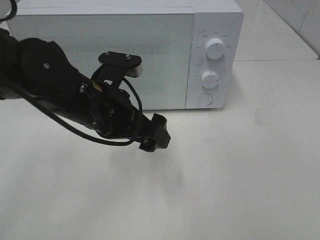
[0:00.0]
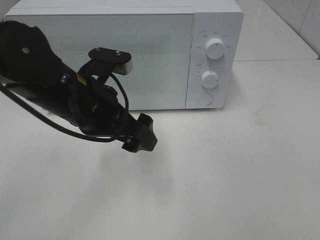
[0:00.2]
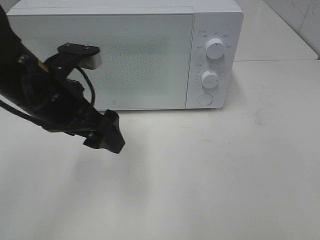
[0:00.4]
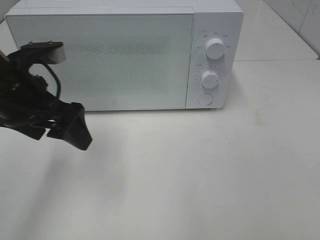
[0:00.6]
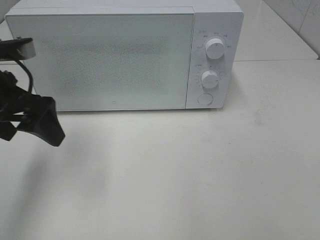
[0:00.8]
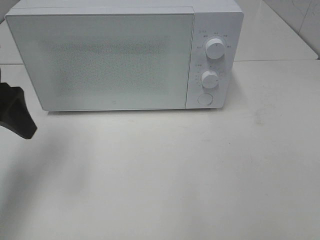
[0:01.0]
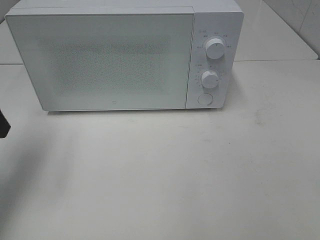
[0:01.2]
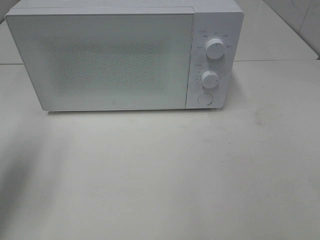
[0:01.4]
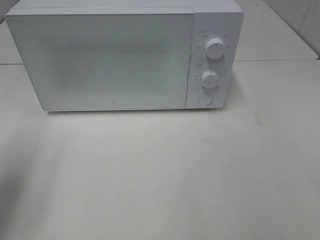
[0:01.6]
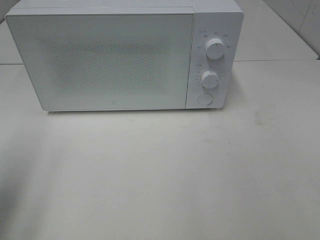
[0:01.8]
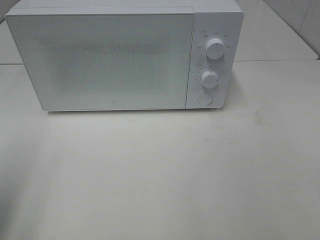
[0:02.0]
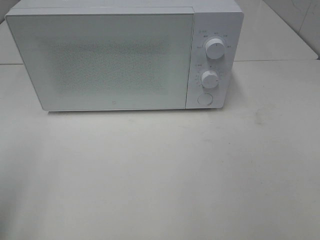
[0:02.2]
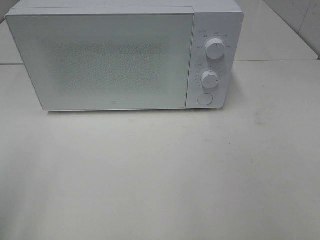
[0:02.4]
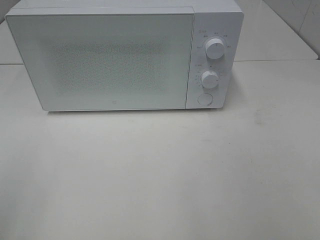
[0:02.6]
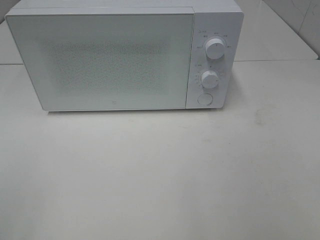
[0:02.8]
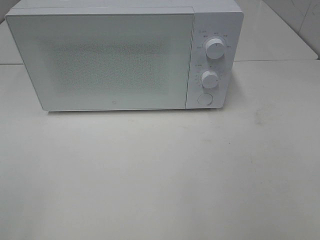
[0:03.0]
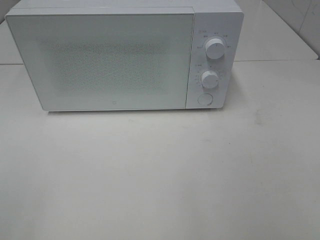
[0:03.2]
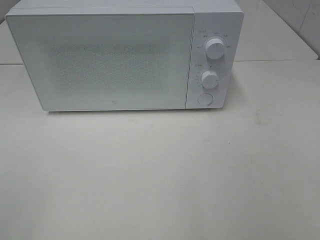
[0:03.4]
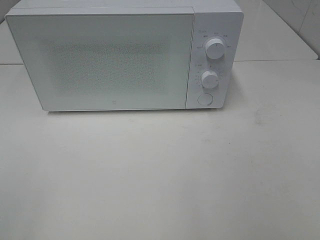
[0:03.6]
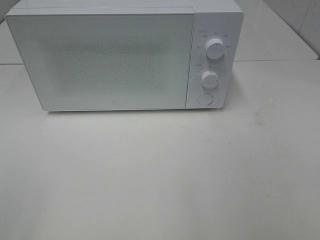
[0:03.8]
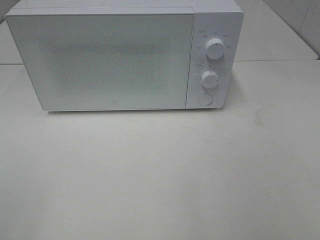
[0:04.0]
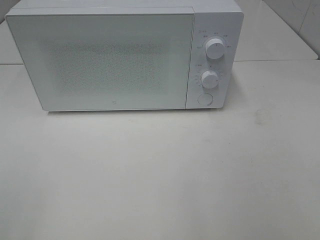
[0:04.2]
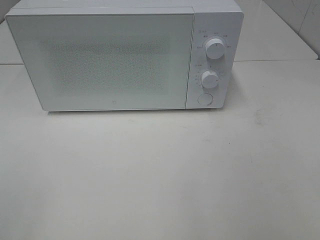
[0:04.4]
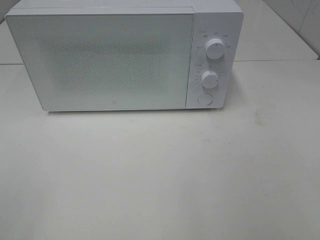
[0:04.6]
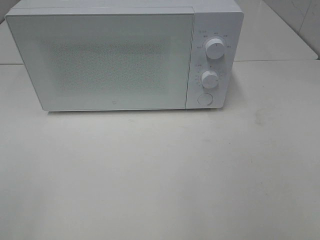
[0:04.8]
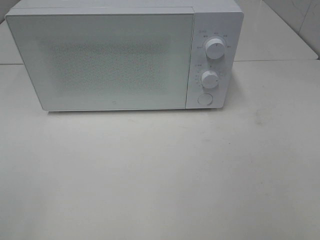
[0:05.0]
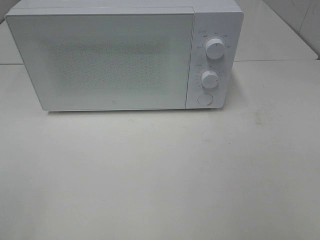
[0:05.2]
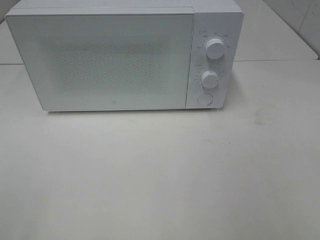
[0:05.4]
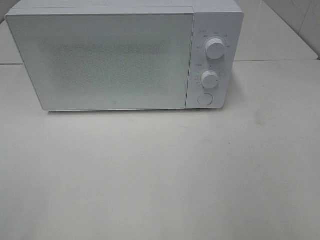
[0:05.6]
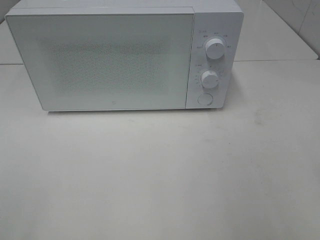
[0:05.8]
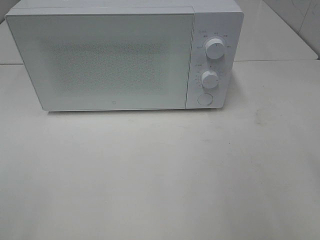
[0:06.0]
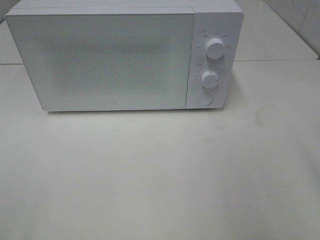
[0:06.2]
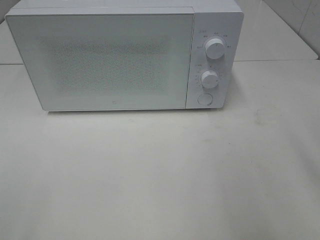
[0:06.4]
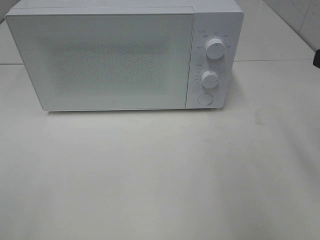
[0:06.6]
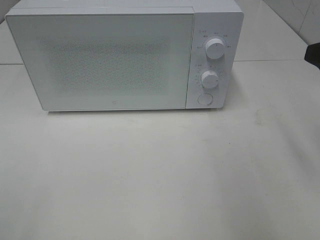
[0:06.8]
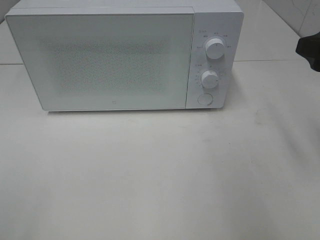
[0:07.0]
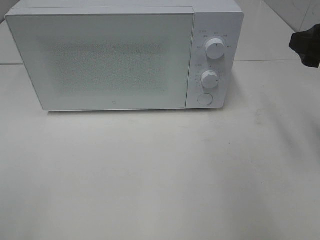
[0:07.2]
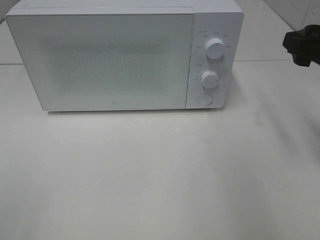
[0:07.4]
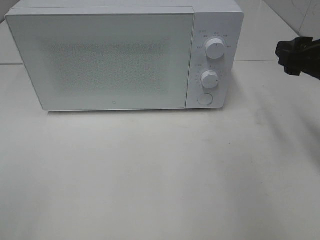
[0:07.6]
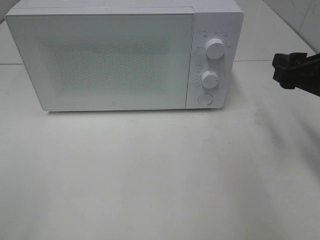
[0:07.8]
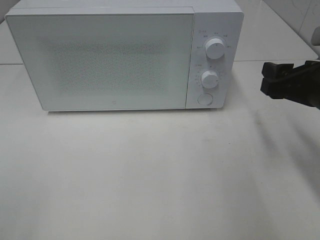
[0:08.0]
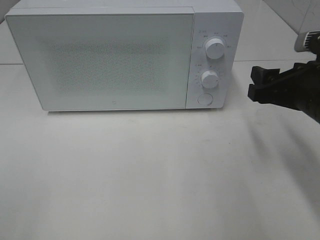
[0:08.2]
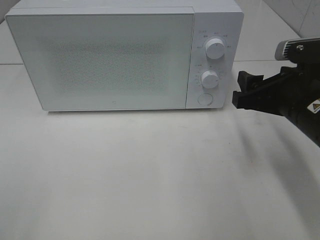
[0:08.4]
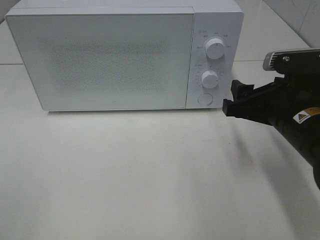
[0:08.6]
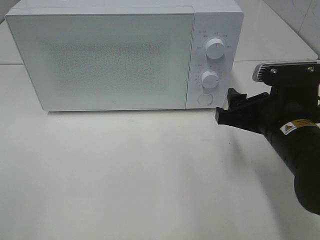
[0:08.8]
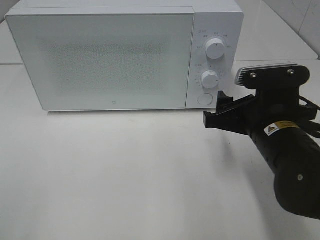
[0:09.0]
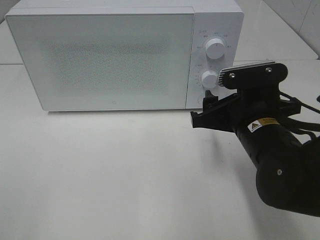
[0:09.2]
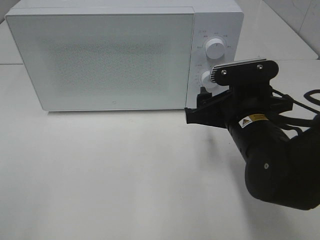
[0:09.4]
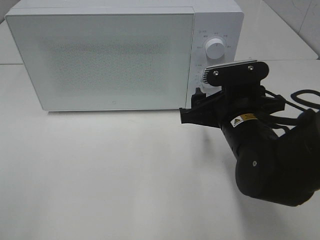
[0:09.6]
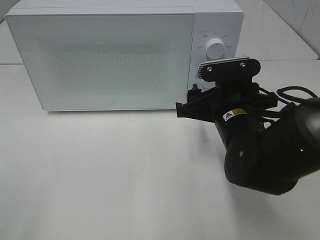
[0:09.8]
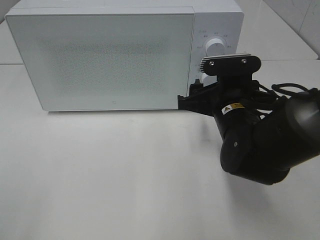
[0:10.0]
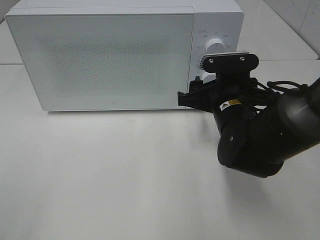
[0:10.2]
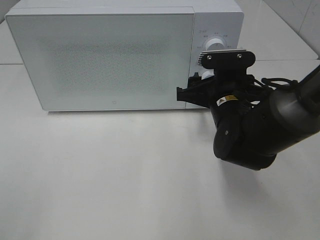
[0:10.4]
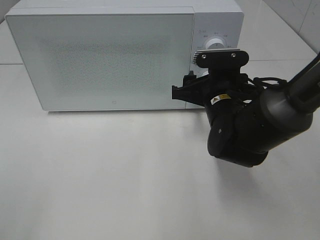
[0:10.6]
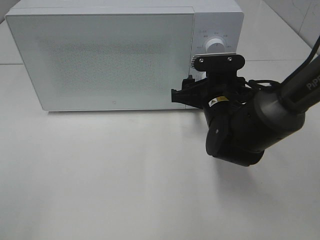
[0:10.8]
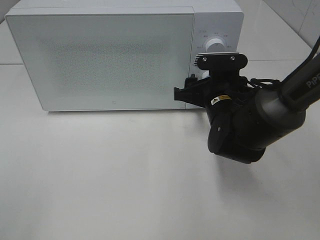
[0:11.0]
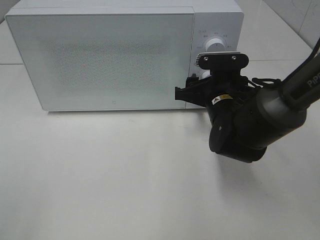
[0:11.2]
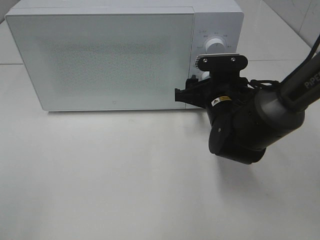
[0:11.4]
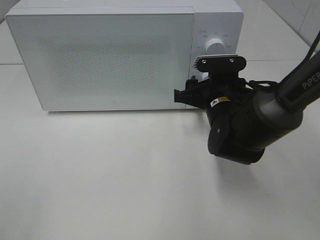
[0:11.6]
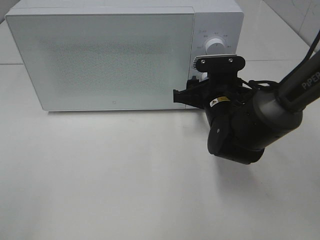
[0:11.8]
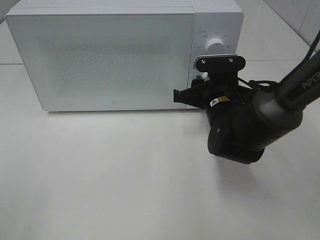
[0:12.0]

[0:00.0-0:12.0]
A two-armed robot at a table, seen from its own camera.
Task of the whole recording: Heat the burger.
0:00.0 to 0:01.6: The left gripper goes roughly 25 cm to the left.
0:01.6 to 0:03.0: The left gripper moves backward, some 20 cm.
0:03.0 to 0:04.4: Neither gripper changes place.
0:06.0 to 0:07.6: The right gripper is displaced forward and downward by roughly 15 cm.
0:07.6 to 0:09.0: The right gripper goes some 15 cm to the left and downward.
0:09.0 to 0:10.4: The right gripper is displaced forward by about 10 cm.
0:10.4 to 0:12.0: There are only small adjustments of the grippers.

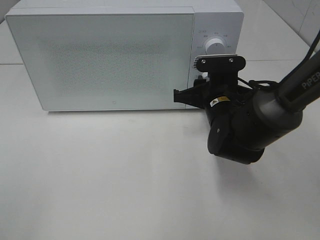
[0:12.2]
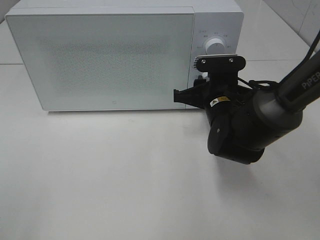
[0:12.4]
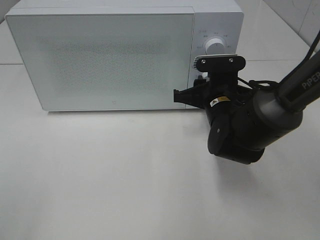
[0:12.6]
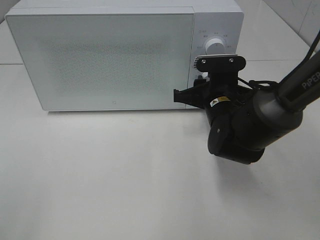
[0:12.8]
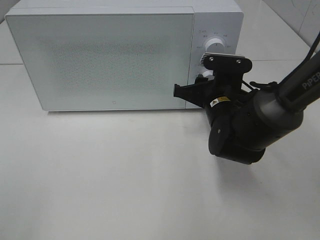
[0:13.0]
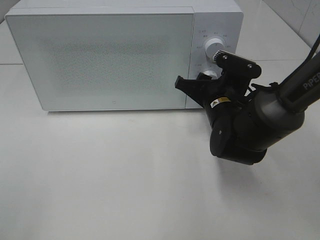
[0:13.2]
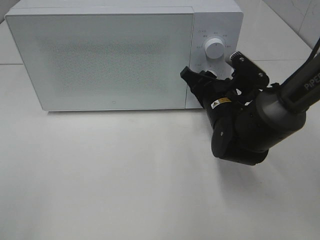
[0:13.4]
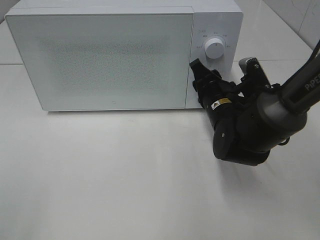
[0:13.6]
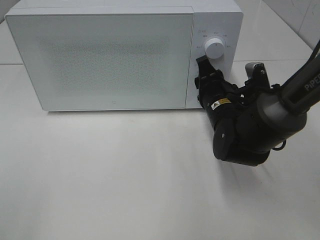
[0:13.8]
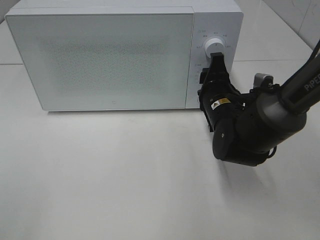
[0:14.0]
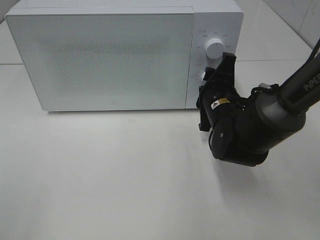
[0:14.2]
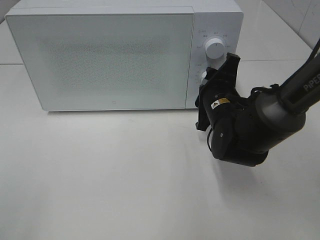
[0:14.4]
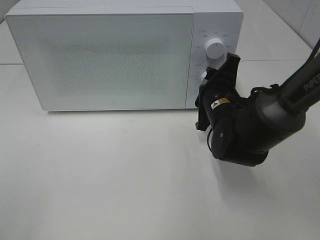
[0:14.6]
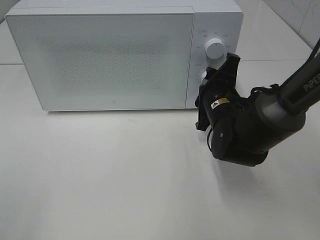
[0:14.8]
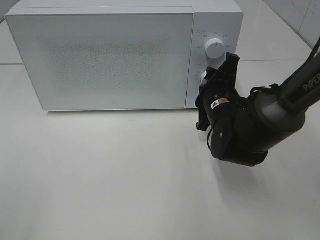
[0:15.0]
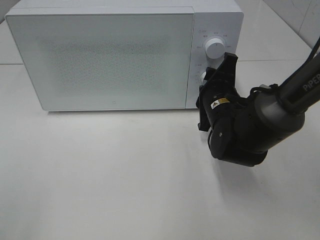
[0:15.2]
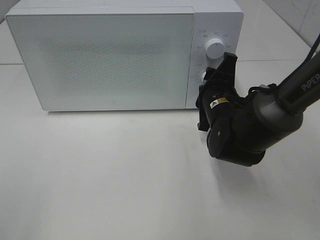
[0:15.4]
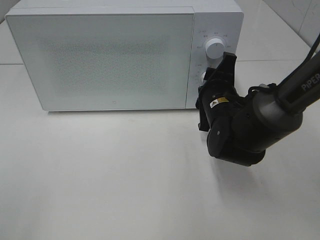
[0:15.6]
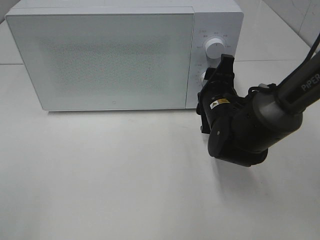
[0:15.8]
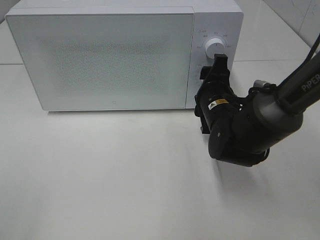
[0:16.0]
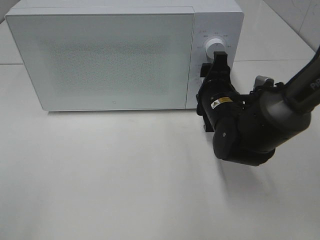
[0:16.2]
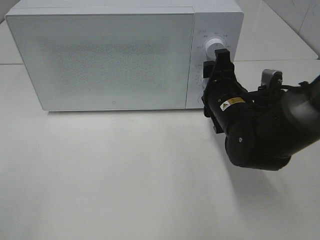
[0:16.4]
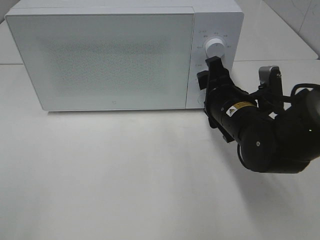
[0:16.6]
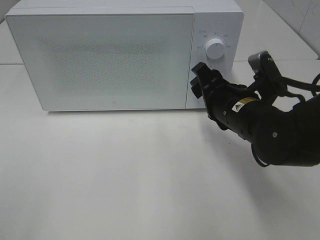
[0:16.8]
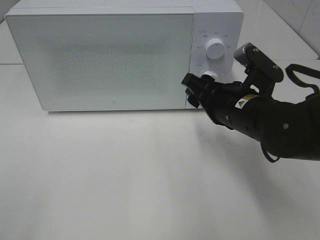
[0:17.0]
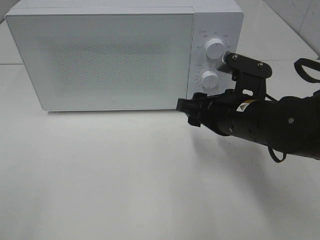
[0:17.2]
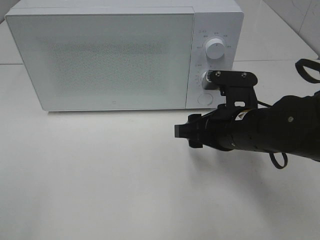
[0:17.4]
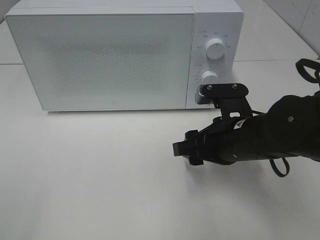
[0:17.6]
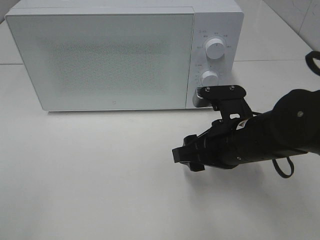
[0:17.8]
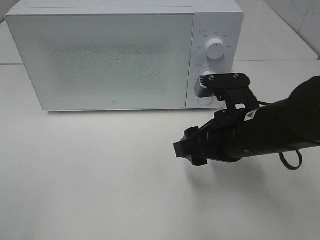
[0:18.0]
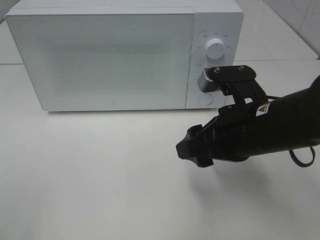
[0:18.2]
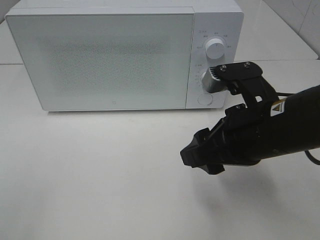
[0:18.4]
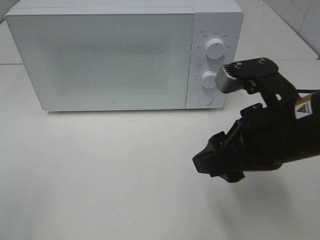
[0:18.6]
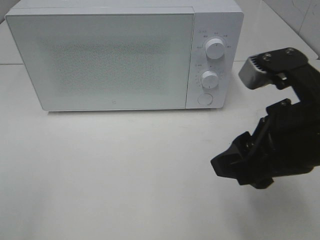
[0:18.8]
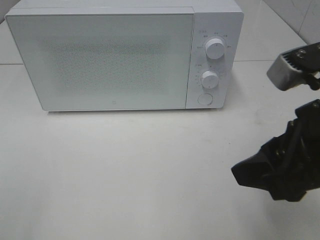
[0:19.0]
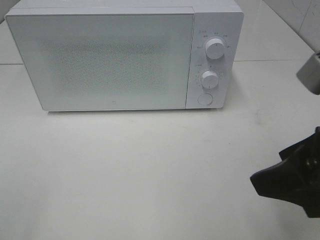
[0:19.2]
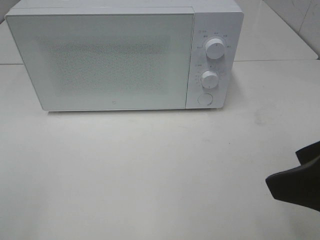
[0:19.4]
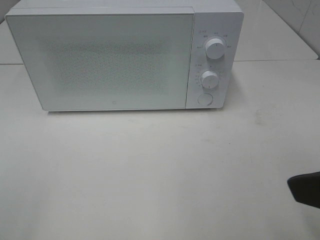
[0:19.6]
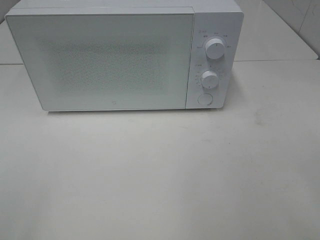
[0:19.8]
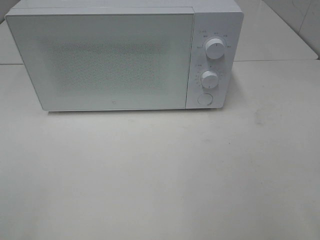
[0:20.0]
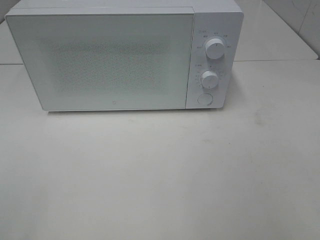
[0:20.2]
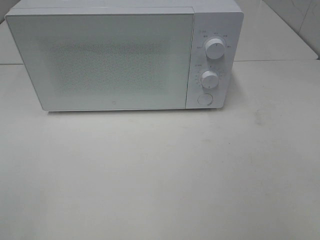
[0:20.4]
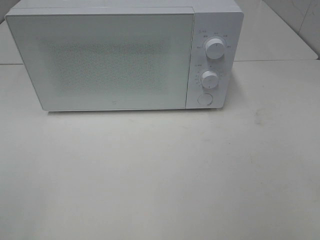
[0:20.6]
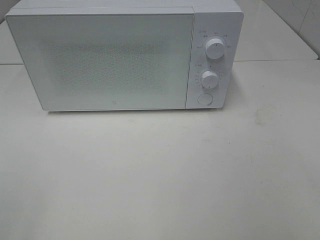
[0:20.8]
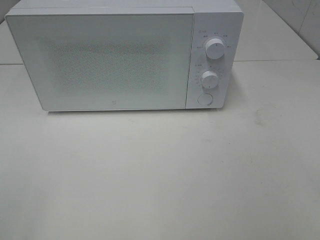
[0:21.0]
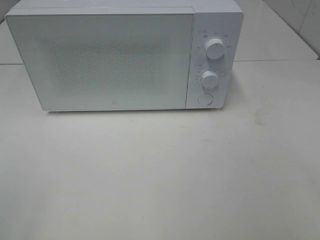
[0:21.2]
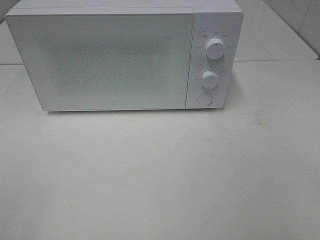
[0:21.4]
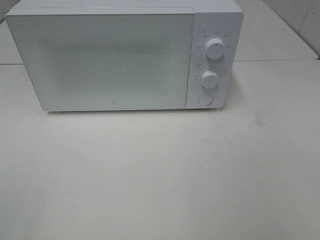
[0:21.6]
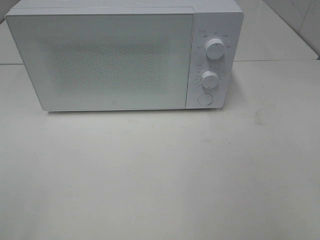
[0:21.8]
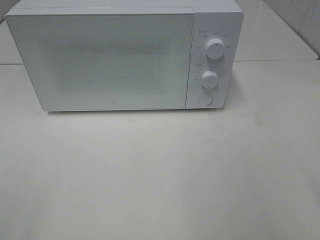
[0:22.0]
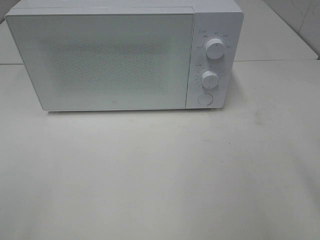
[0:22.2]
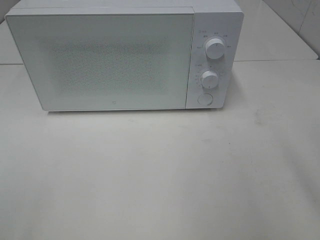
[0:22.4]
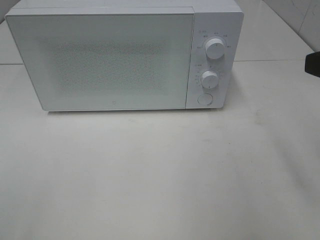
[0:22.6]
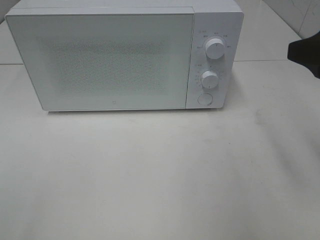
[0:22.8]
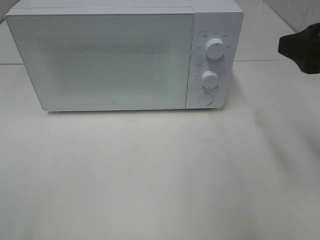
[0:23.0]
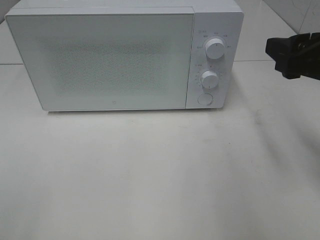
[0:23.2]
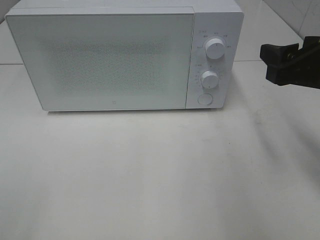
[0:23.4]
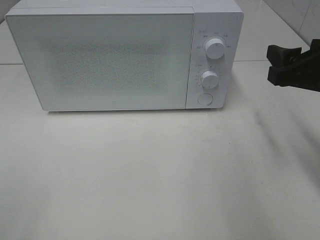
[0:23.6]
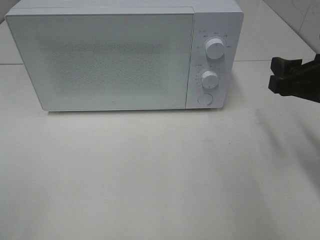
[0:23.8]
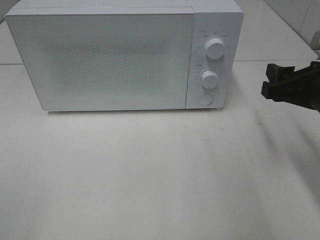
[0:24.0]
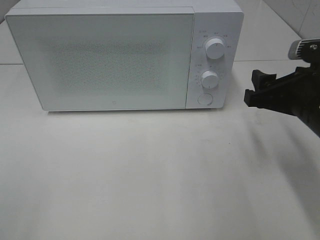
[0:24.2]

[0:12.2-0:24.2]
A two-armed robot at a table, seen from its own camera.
Task of the whole recording: Heat the burger.
Step, 0:12.2 to 0:16.0: Right hand: twist timer button.
0:16.6 to 0:18.2: The right gripper is displaced backward and upward by some 10 cm.
0:18.2 to 0:19.8: The right gripper goes some 20 cm backward, to the right and upward.
0:22.6 to 0:24.2: The right gripper heads downward and forward, covering some 15 cm.
